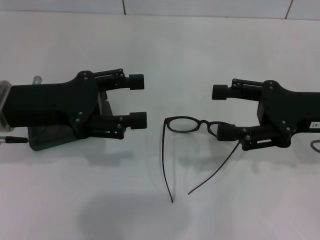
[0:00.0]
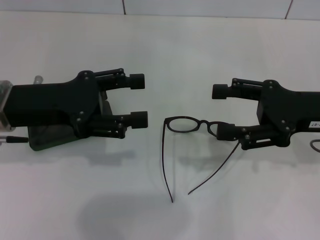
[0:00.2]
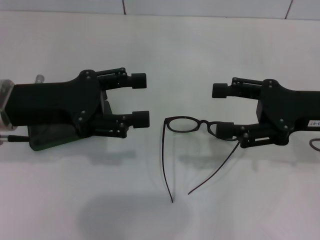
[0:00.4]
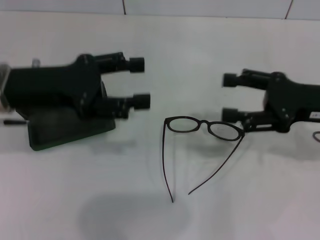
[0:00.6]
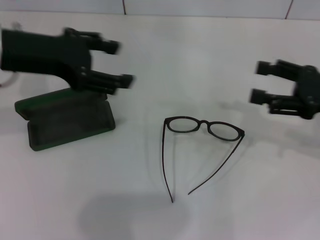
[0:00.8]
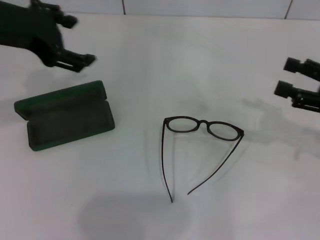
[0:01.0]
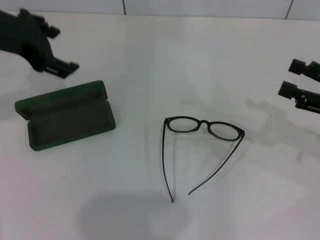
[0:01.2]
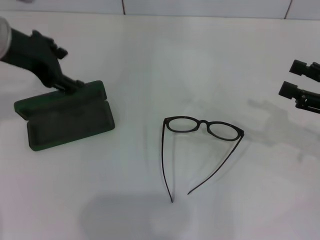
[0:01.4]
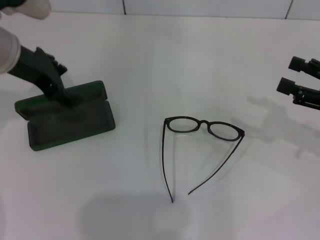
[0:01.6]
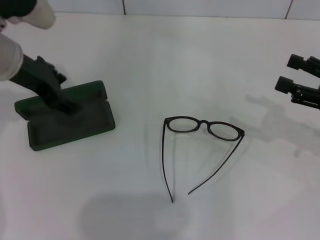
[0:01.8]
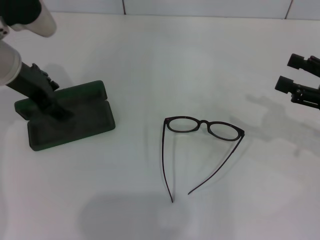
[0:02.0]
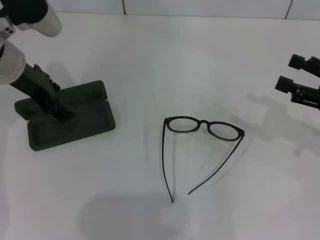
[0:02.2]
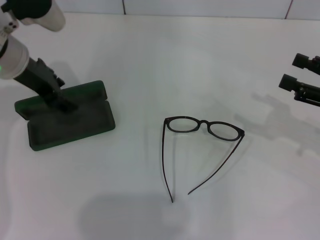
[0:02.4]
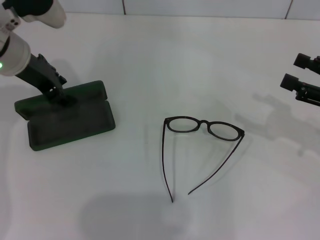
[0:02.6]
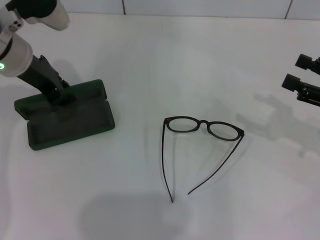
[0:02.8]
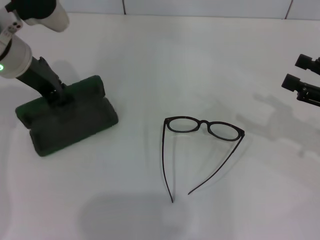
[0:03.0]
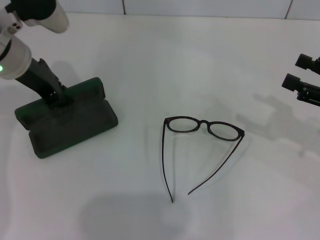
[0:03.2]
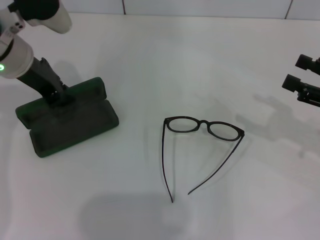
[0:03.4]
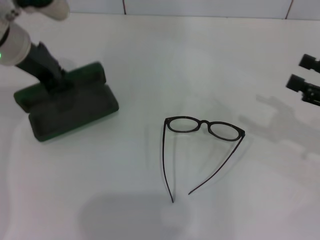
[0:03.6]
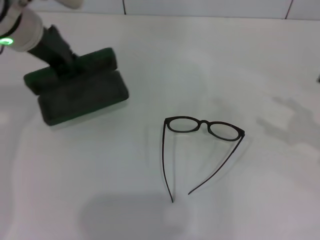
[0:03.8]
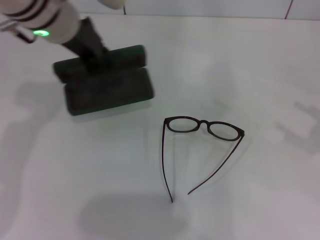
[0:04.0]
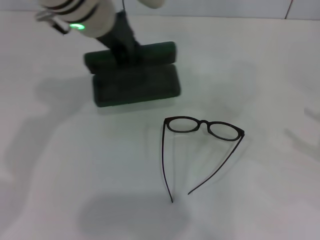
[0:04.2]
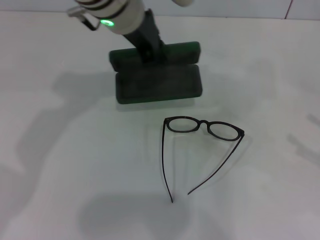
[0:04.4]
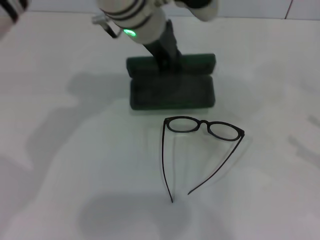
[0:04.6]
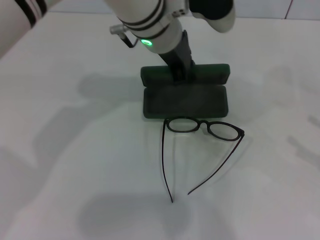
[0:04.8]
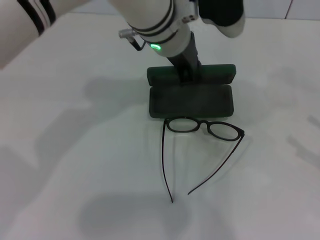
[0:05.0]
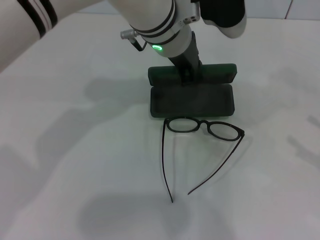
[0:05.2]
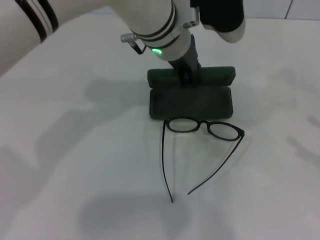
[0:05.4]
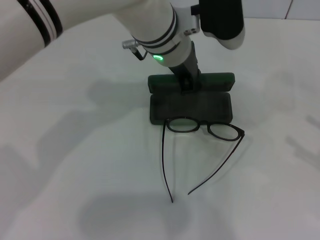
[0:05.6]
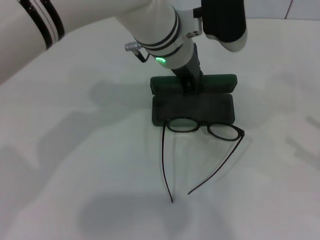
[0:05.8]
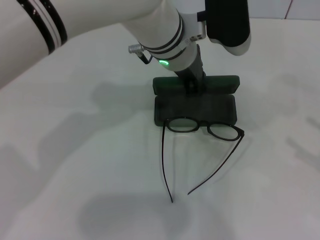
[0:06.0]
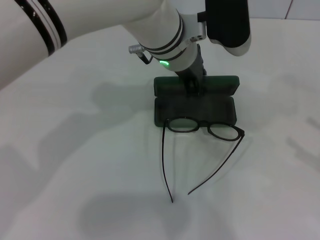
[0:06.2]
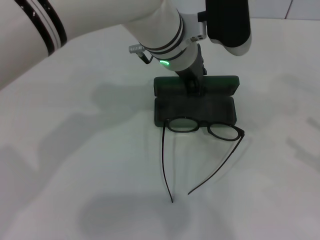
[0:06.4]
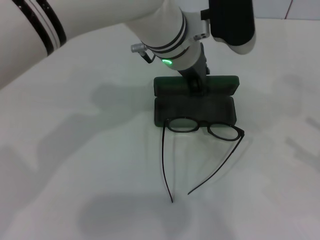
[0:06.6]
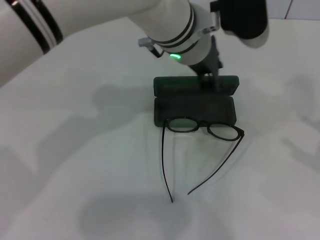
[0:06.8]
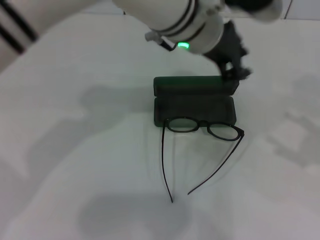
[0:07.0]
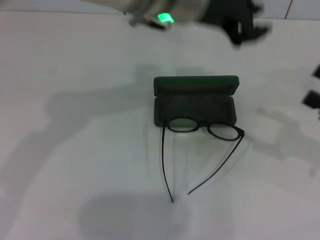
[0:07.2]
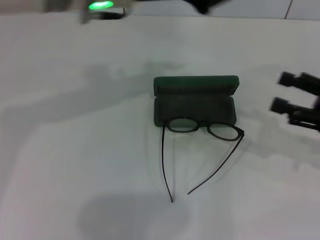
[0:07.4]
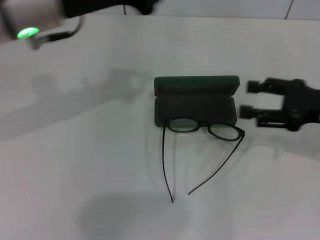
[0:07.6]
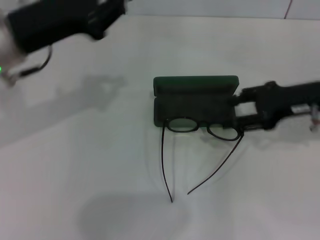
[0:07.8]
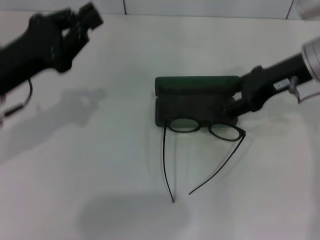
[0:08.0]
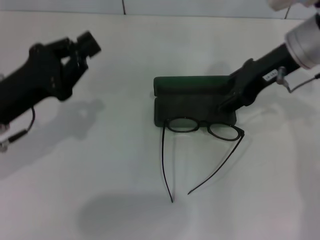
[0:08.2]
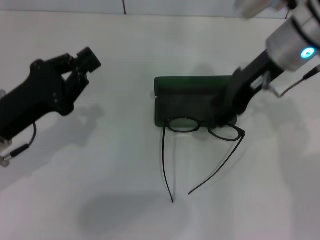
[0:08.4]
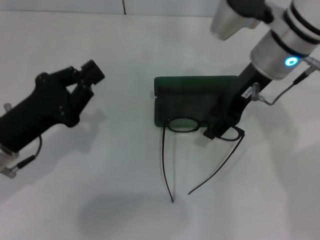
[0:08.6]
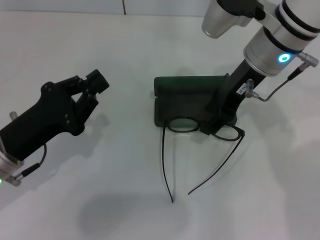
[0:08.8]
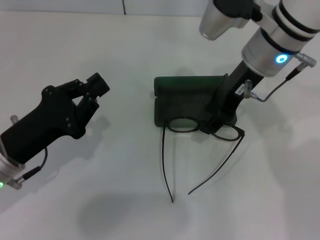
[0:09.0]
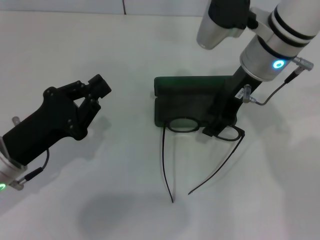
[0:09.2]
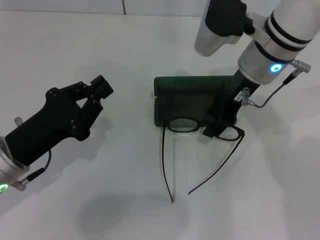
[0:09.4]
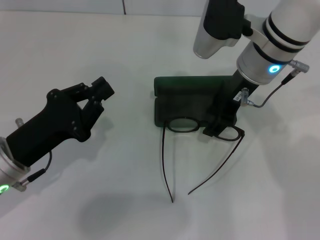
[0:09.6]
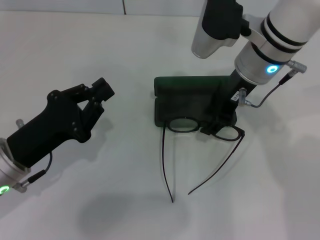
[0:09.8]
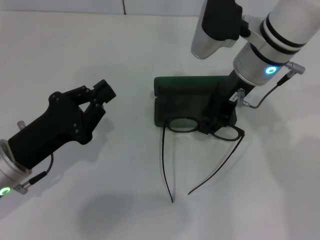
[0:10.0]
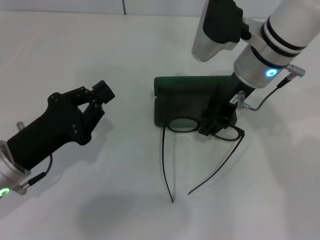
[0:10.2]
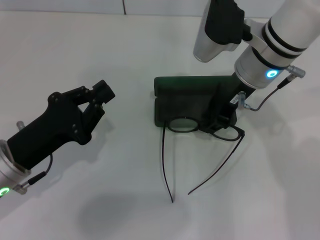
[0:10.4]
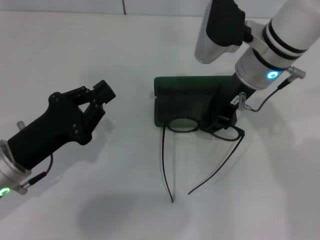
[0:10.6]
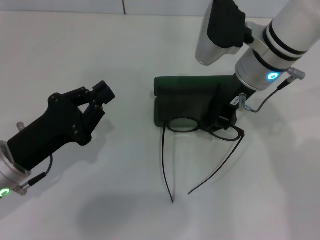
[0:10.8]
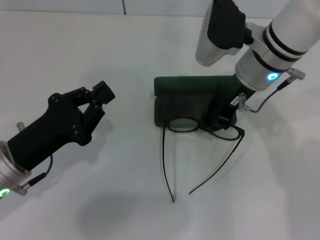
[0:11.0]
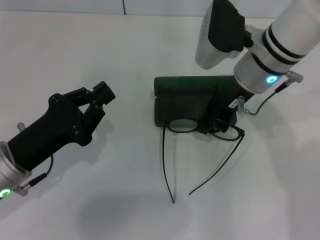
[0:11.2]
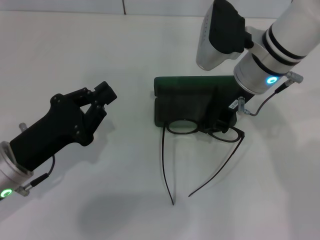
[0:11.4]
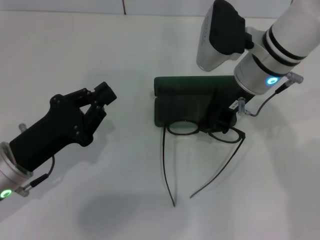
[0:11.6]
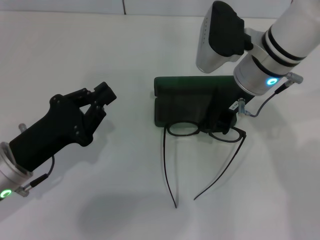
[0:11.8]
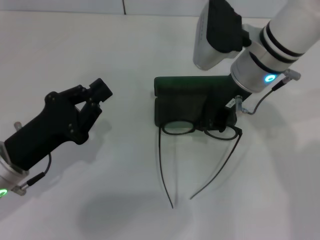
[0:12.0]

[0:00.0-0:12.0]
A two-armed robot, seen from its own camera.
Step, 0:00.0 to 0:03.2: Grab the glasses case with your left hand.
Step, 0:03.4 to 0:06.6: Place the glasses case in the center of the table with your left hand.
Step, 0:06.8 to 0:11.6: Grab the eyeglass frame with your right hand.
0:00.0 to 0:01.6: The right gripper travels to the right by about 10 cm; the left gripper goes approximately 10 cm forward.
0:01.6 to 0:03.0: The left gripper closes.
0:03.0 to 0:04.4: The right gripper moves backward and to the right, approximately 10 cm. The left gripper is displaced to the right by about 15 cm.
0:04.4 to 0:06.0: The left gripper moves to the right and downward, roughly 10 cm.
0:06.0 to 0:07.6: The left gripper goes about 15 cm to the left. The right gripper heads to the left and forward, covering approximately 15 cm.
0:07.6 to 0:09.0: The left gripper is displaced downward and backward by some 20 cm; the right gripper shifts roughly 20 cm to the left and forward.
0:09.0 to 0:12.0: There are only small adjustments of the grippers.

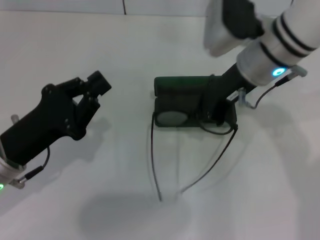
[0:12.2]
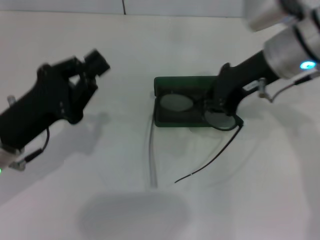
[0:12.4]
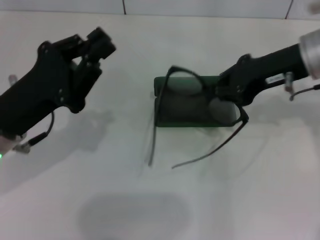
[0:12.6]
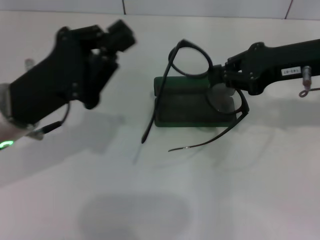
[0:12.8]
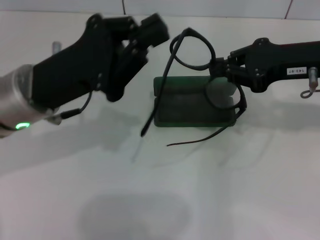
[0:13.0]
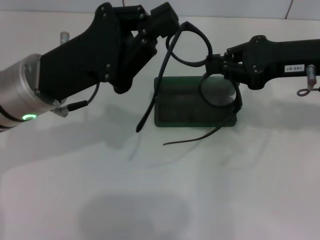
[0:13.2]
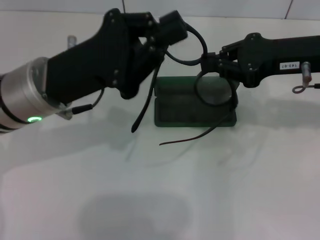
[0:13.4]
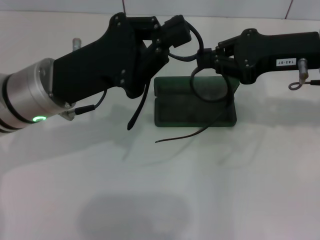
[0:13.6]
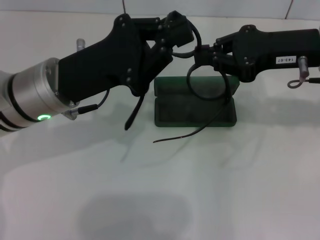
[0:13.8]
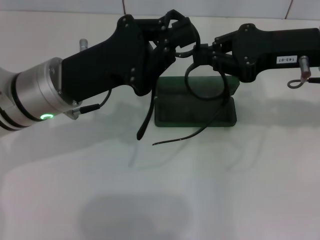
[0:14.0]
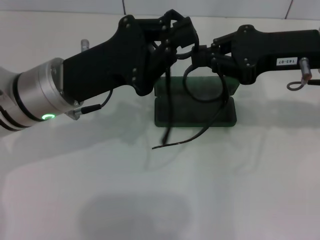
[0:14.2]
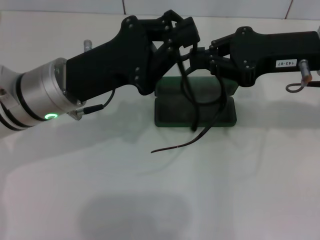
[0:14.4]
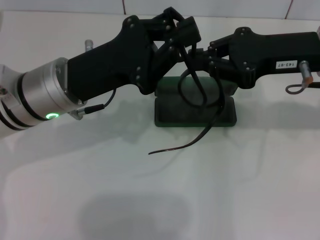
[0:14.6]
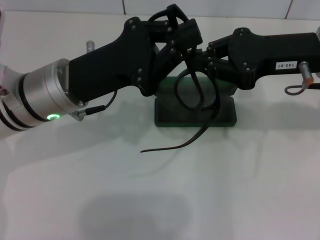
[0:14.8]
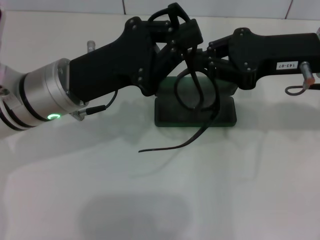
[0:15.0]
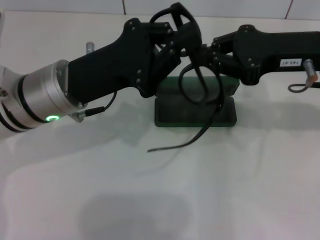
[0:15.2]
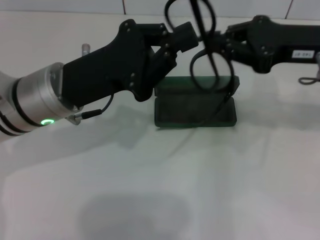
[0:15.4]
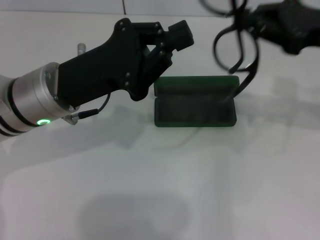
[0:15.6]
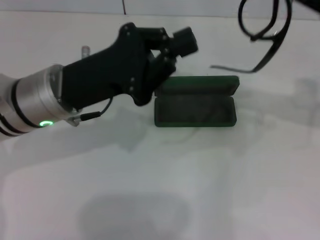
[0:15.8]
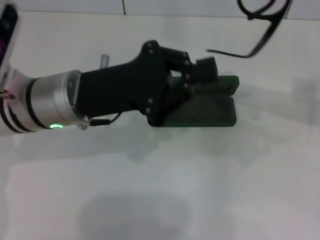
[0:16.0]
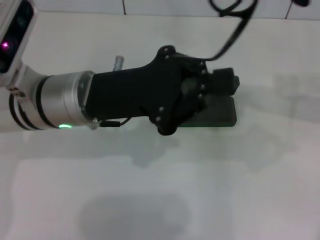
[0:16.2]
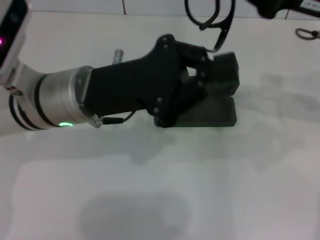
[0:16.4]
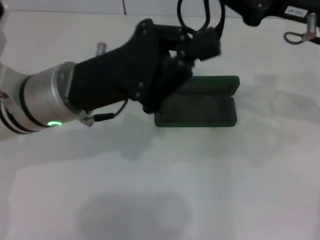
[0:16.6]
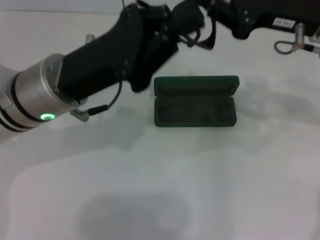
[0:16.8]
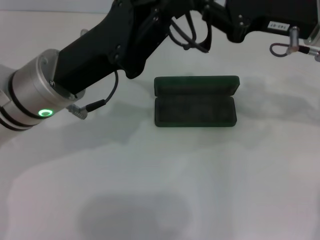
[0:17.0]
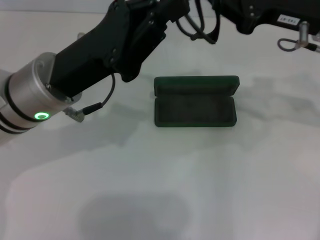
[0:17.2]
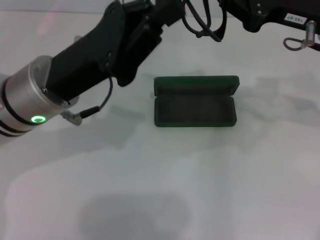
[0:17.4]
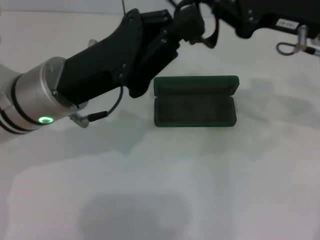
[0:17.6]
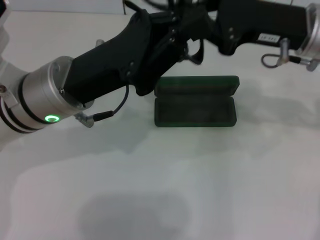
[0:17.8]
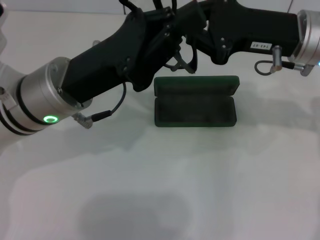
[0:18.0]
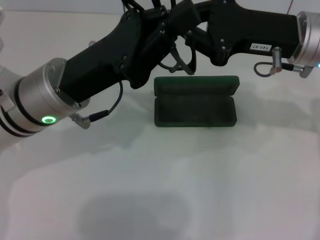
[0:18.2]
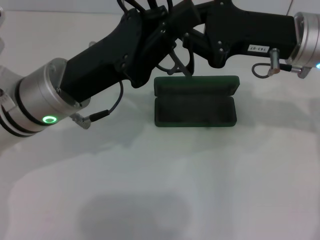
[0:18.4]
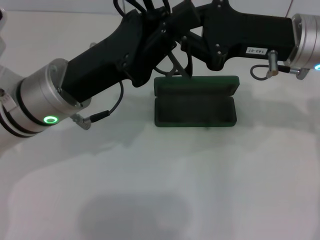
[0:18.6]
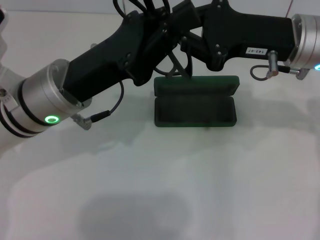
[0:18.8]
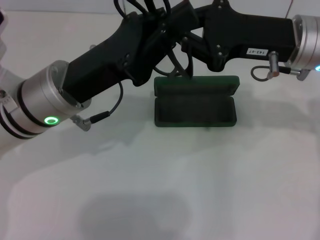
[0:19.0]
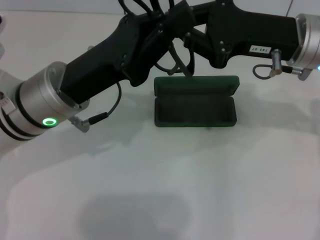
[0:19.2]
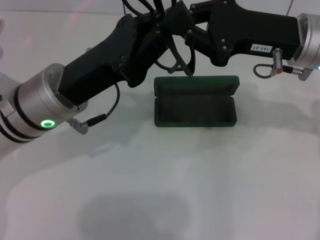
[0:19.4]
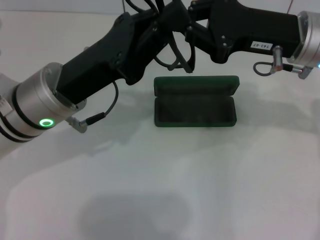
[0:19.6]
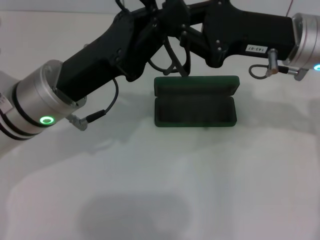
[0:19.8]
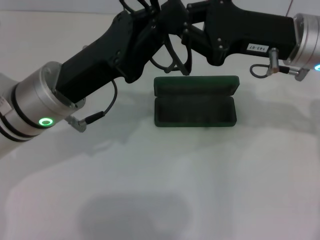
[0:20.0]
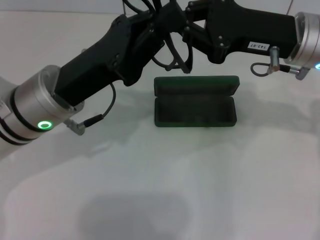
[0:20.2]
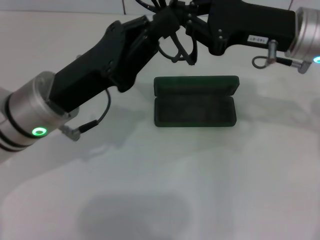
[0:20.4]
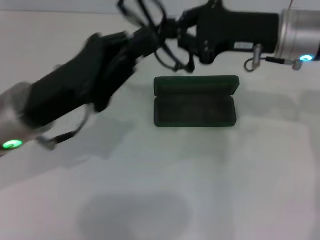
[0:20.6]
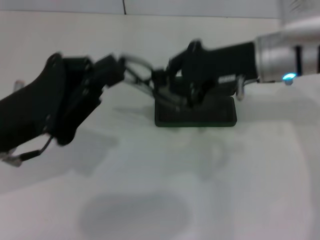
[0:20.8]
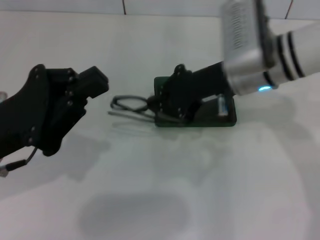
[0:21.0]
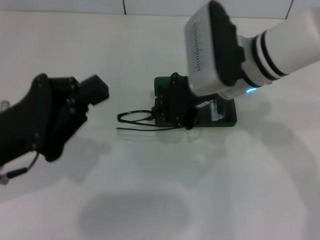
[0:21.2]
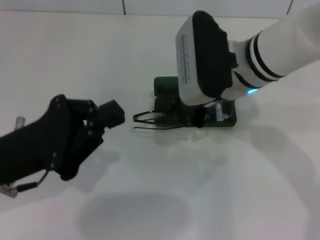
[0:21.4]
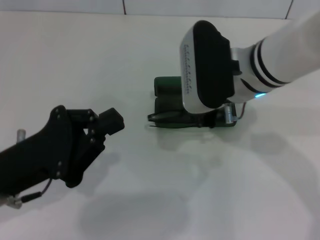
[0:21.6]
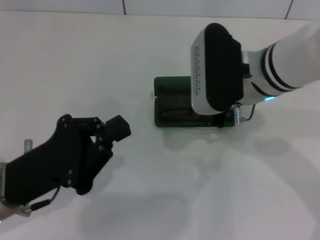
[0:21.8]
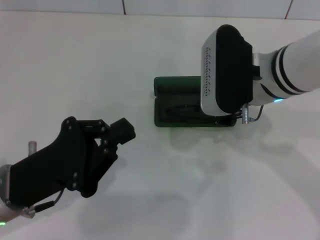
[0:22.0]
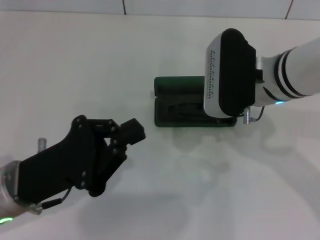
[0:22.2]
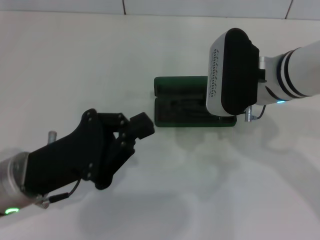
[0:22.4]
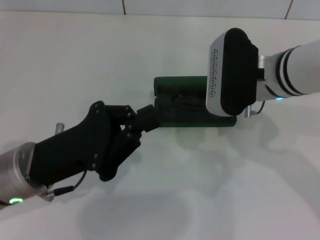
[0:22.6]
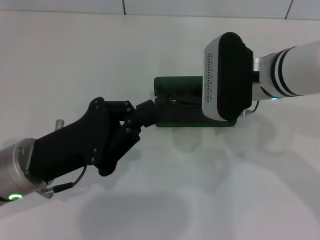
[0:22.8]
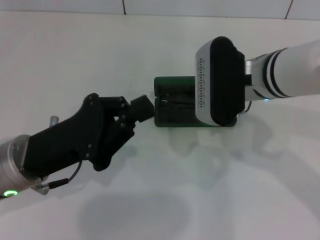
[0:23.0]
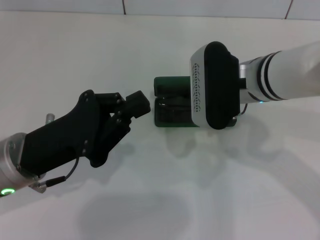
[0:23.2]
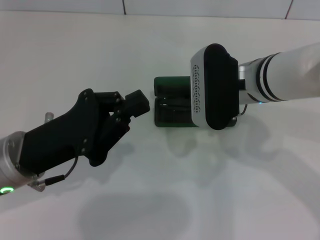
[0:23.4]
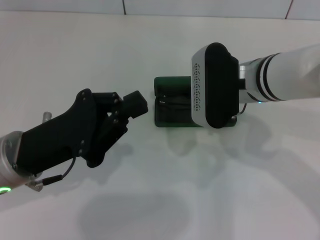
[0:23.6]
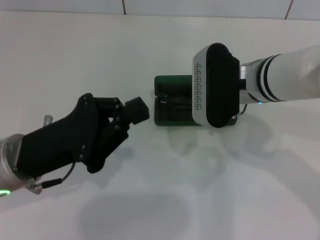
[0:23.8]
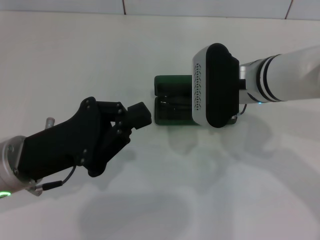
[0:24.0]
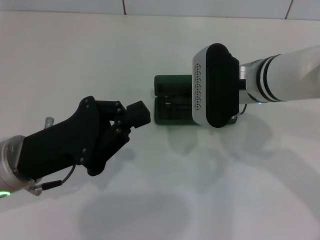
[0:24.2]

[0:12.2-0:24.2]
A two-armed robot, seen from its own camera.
Step, 0:12.2 to 0:20.2: Fold the frame with your left hand.
0:12.2 to 0:13.8: The right gripper goes about 10 cm to the right; the left gripper travels forward, upward and to the right by roughly 15 cm.
0:13.8 to 0:15.2: The grippers move only a little.
0:18.2 to 0:19.8: Both grippers stay about where they are.
0:19.8 to 0:21.2: The right gripper travels to the left by about 10 cm; the left gripper heads to the left and backward, covering roughly 10 cm.
0:21.2 to 0:22.6: The left gripper shifts by some 5 cm.
0:22.6 to 0:24.2: The grippers move only a little.
